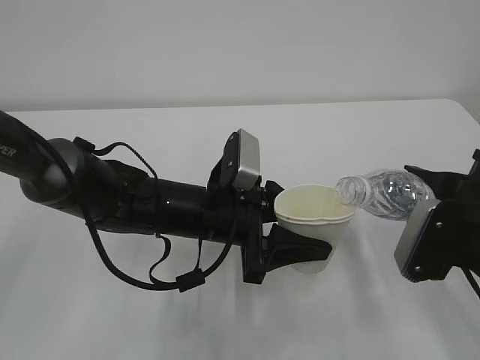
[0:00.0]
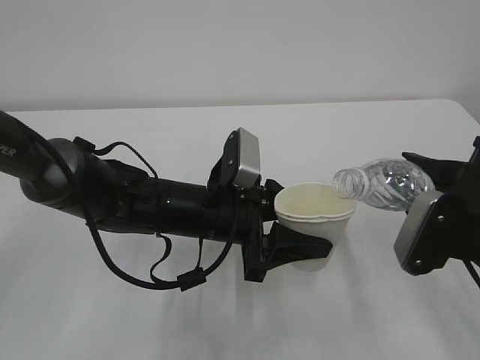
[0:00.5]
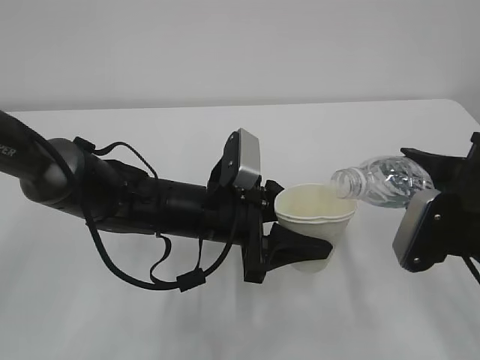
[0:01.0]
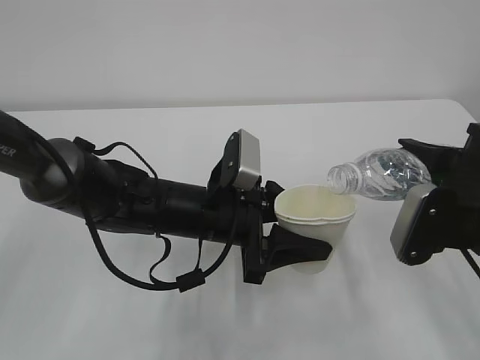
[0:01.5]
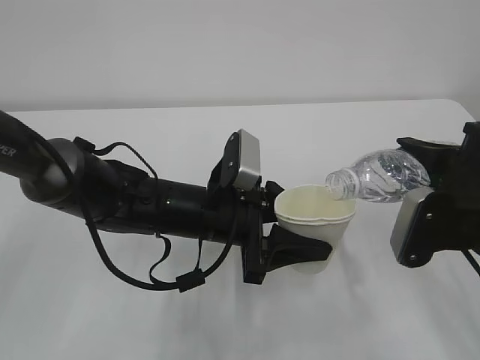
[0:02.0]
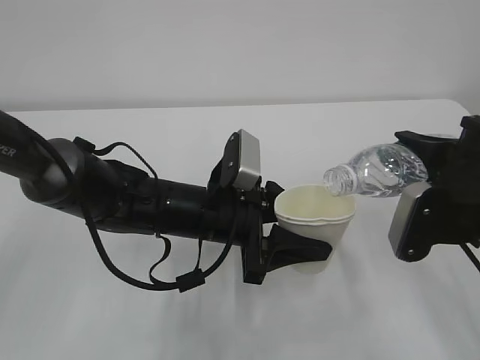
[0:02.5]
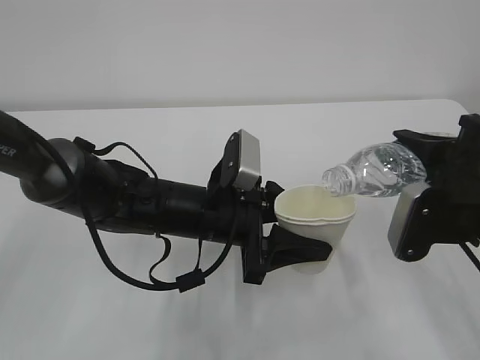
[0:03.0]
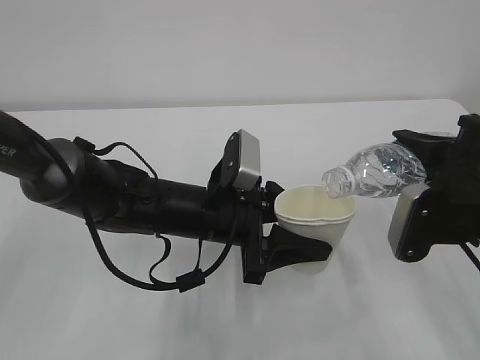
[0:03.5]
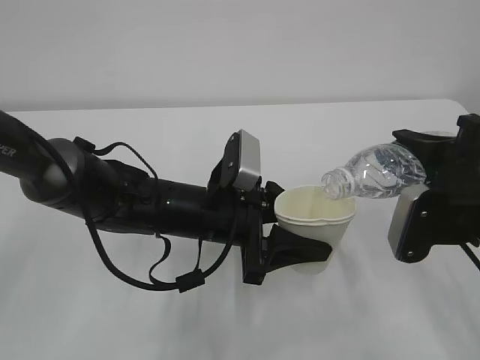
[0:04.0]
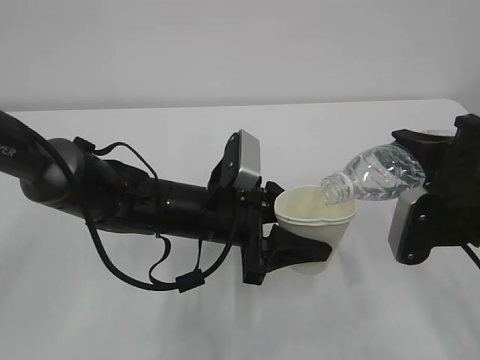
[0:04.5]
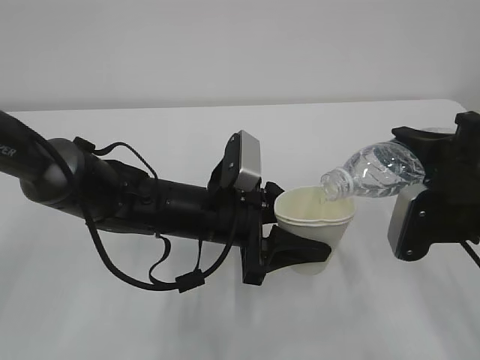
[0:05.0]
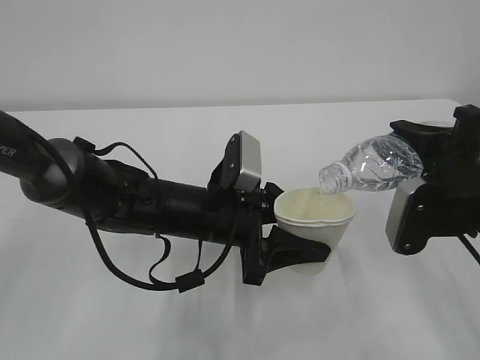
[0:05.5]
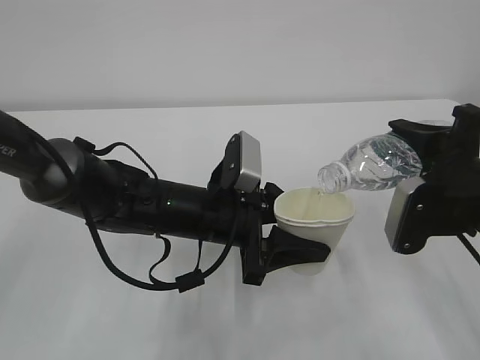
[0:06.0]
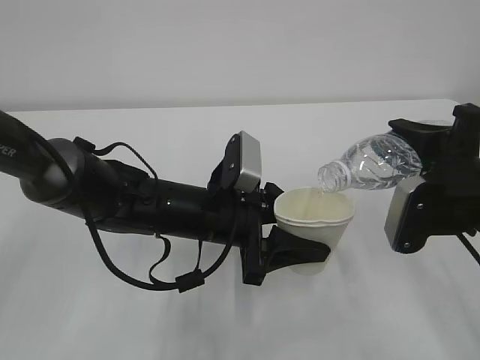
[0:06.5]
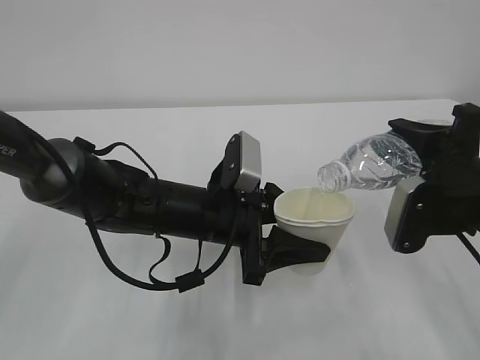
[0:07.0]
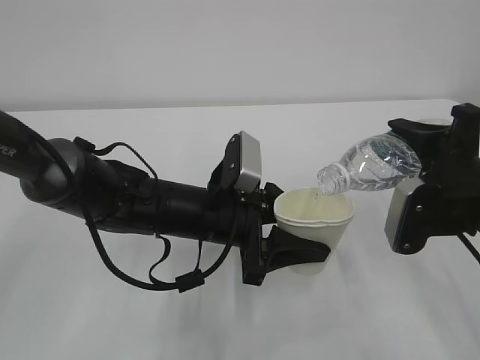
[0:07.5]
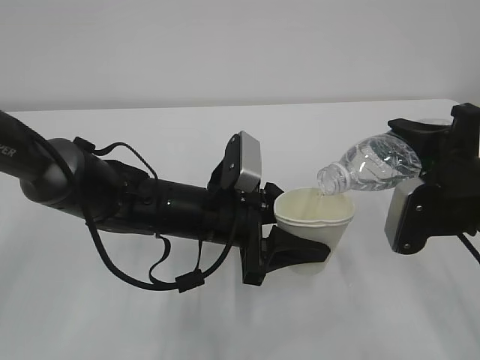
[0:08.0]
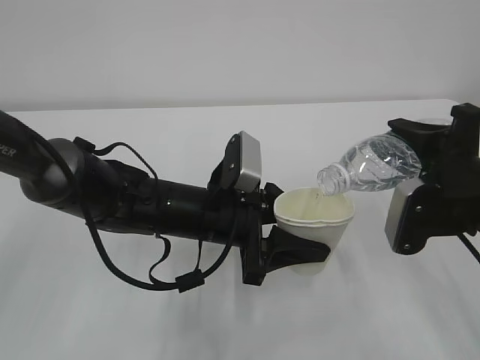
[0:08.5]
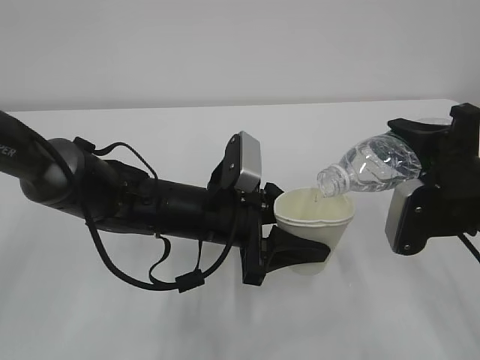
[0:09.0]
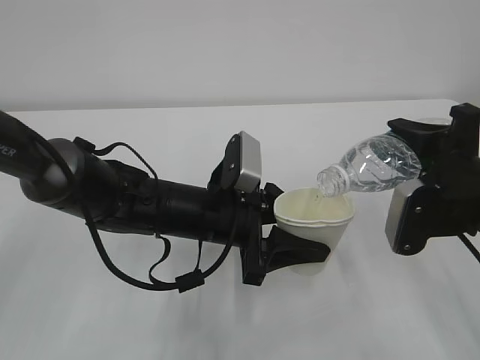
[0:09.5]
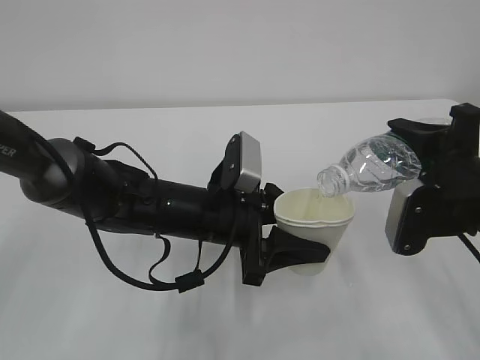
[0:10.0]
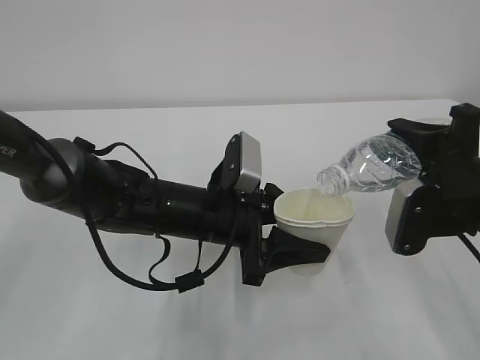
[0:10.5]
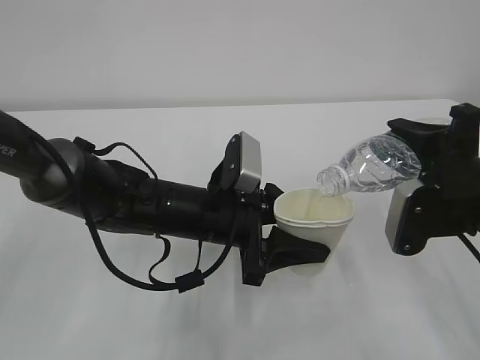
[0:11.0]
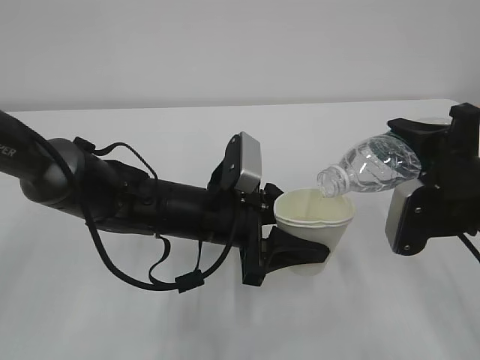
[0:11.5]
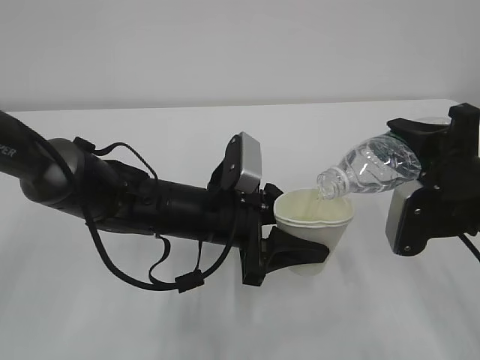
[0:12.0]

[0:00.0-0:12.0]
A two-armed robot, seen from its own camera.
0:00.0 to 0:02.0: There are only small adjustments of the grippers.
0:02.0 to 0:04.0: Both grippers stay about where they are.
0:04.0 to 0:08.0: Neither gripper changes place.
0:08.0 to 0:12.0: Both grippers stay put.

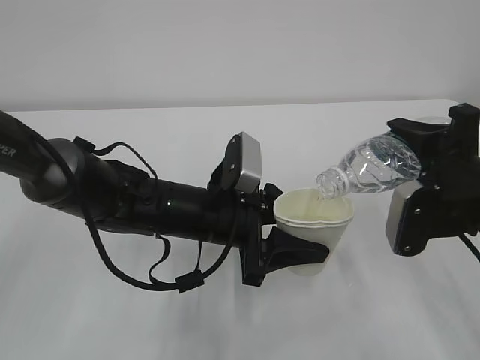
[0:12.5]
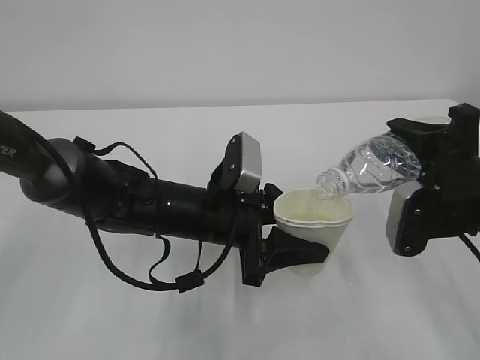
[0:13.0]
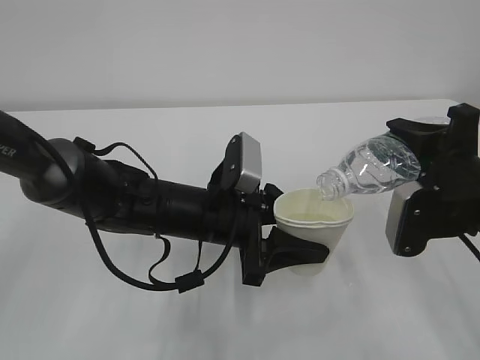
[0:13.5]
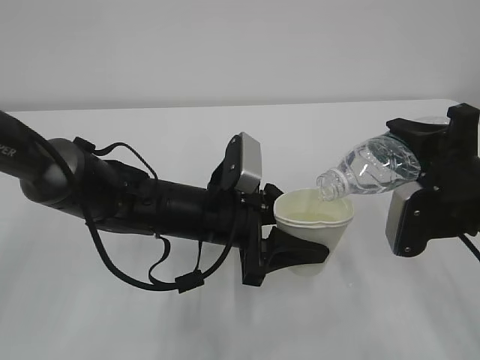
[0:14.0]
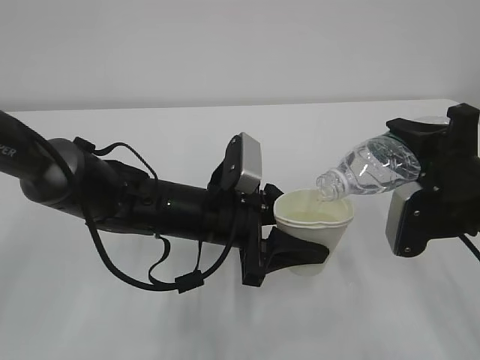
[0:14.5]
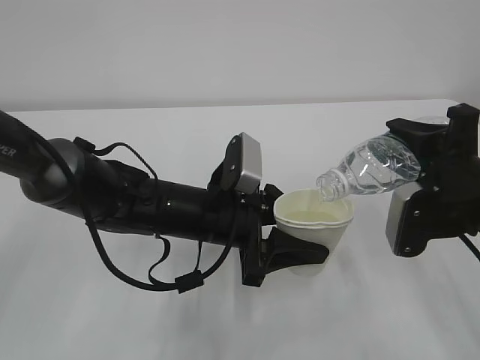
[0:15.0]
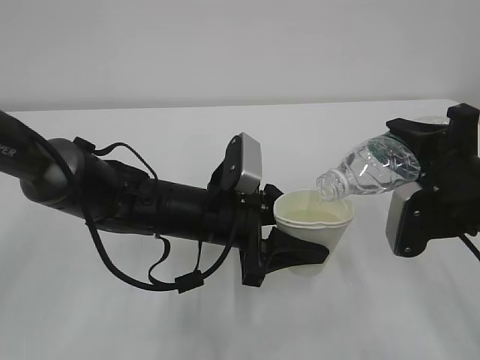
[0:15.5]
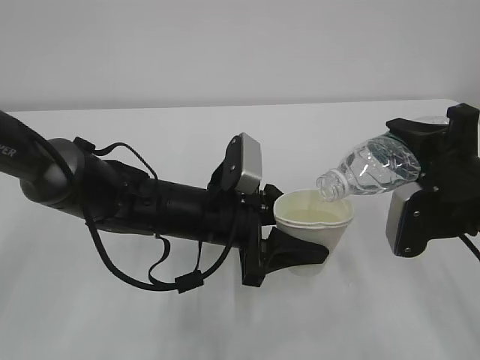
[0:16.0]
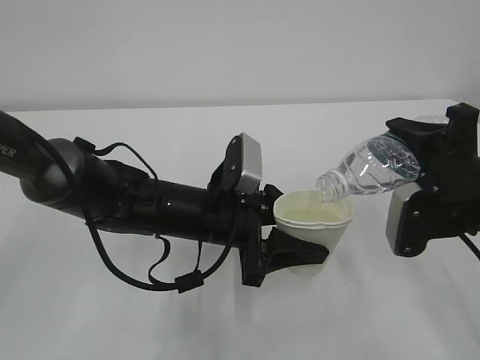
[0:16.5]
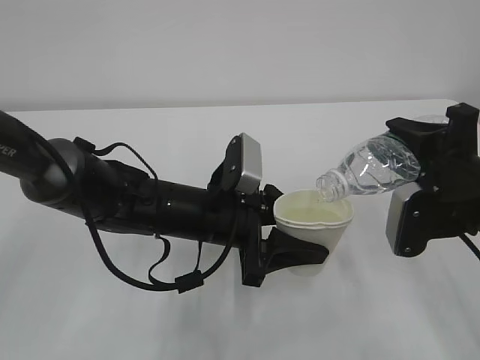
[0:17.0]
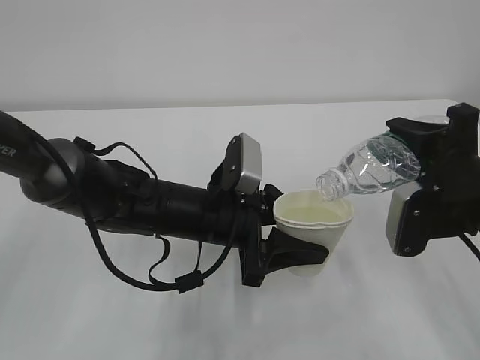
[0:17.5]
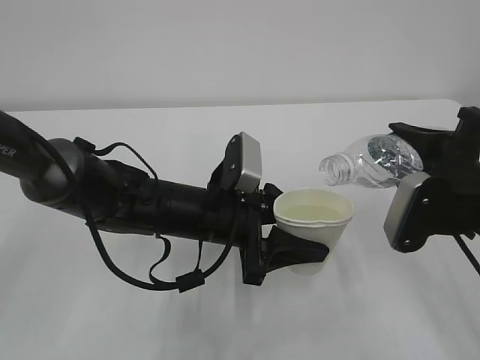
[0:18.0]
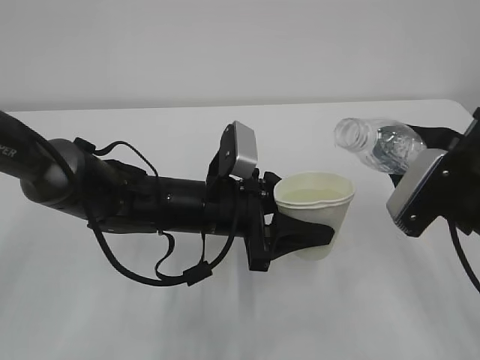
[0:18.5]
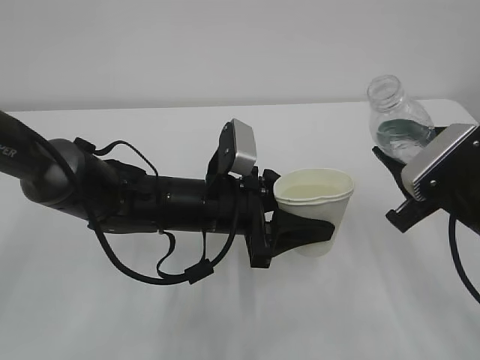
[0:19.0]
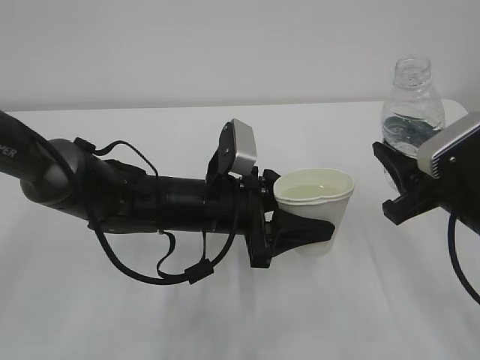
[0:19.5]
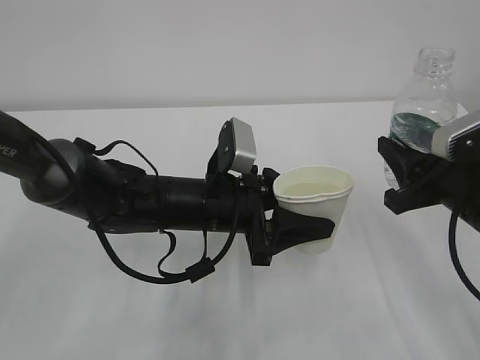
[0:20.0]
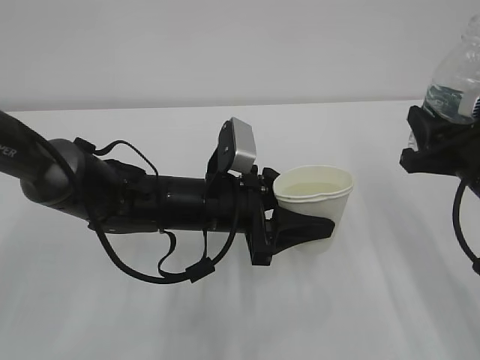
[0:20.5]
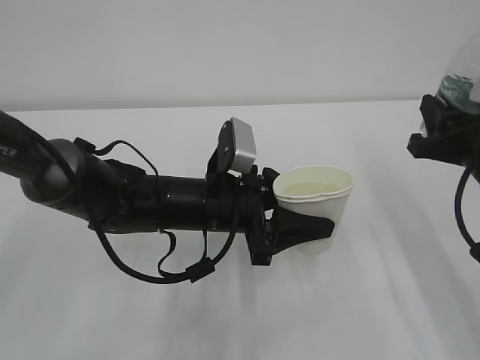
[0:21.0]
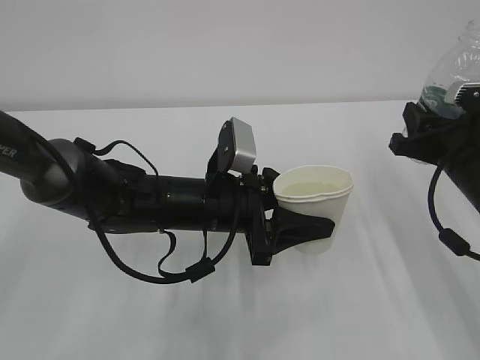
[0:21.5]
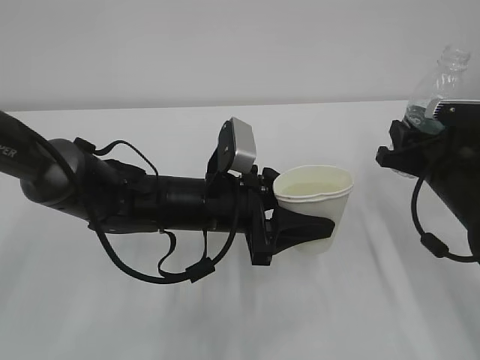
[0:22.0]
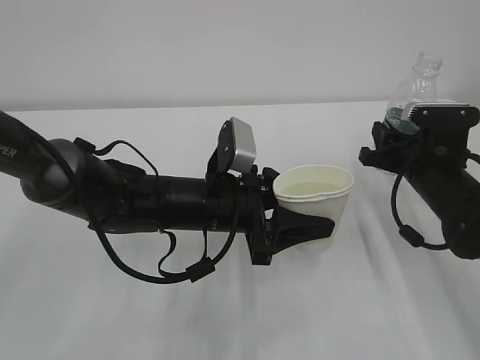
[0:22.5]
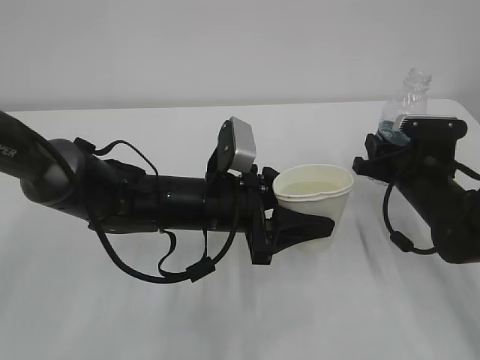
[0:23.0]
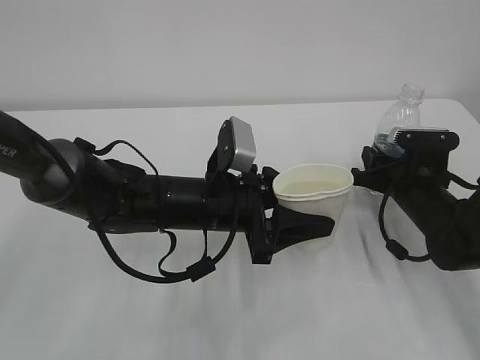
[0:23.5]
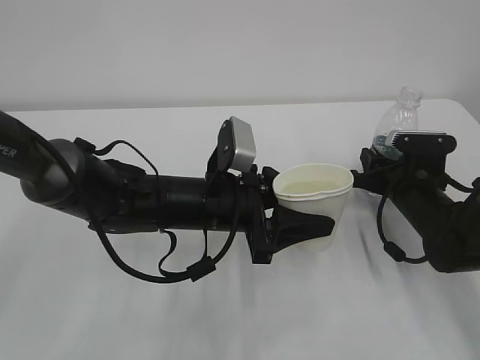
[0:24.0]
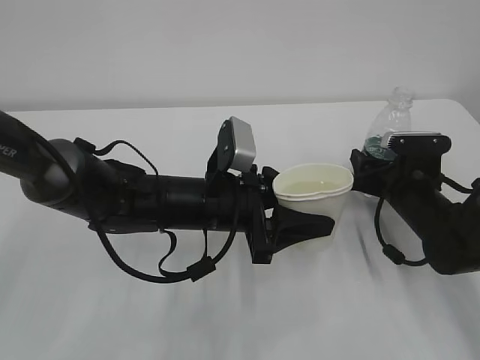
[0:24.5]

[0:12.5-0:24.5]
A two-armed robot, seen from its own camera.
0:12.5 to 0:16.5: The two grippers keep their place.
0:20.5 to 0:22.5: The right gripper moves forward and downward, some 10 cm.
0:22.5 to 0:24.5: The right gripper is displaced downward by some 5 cm.

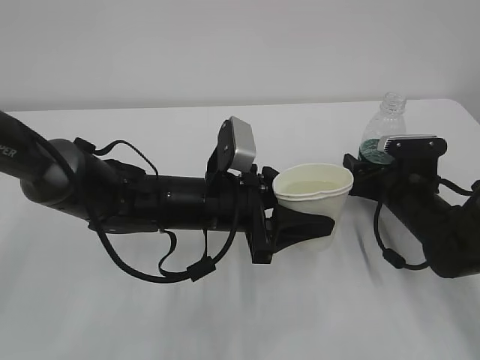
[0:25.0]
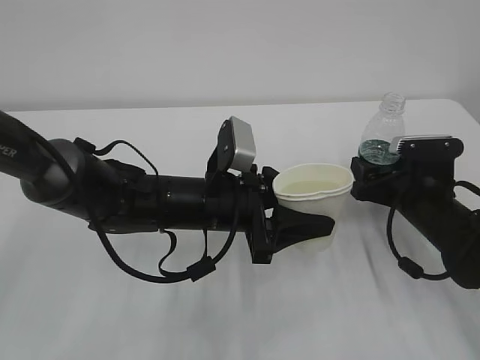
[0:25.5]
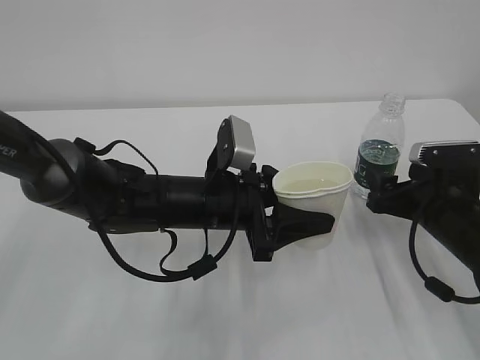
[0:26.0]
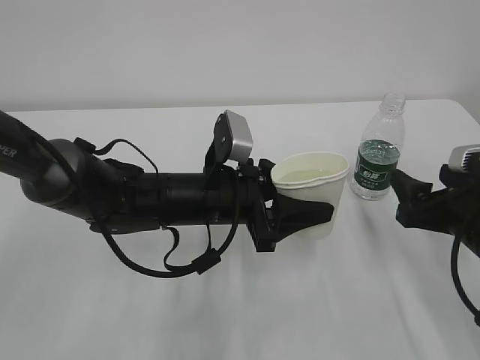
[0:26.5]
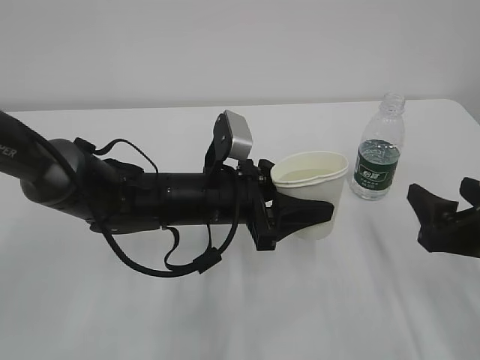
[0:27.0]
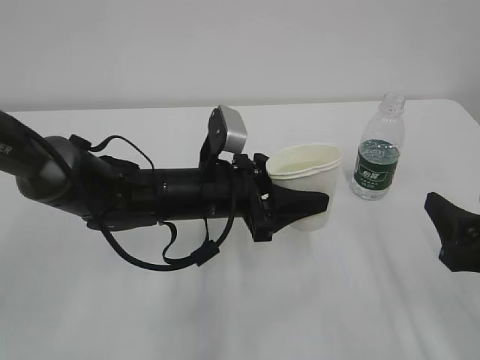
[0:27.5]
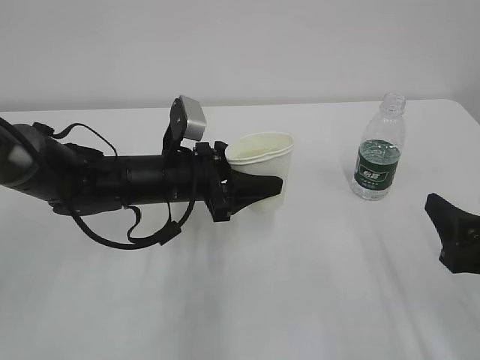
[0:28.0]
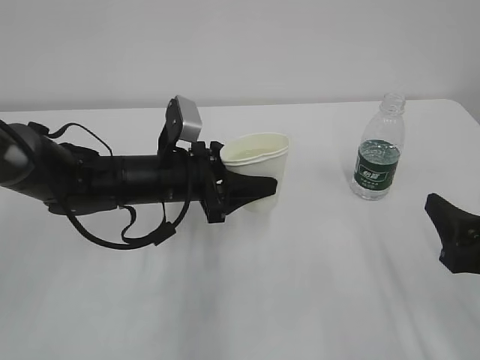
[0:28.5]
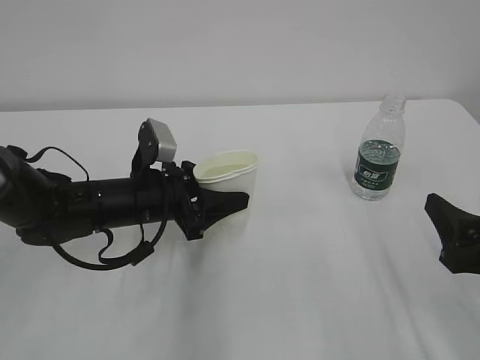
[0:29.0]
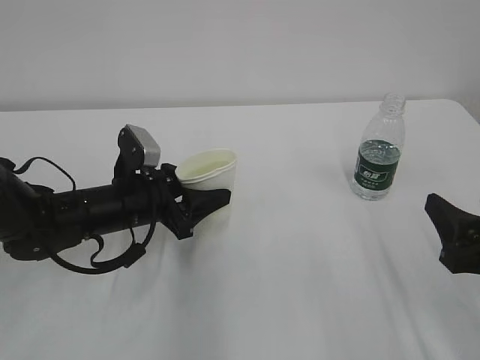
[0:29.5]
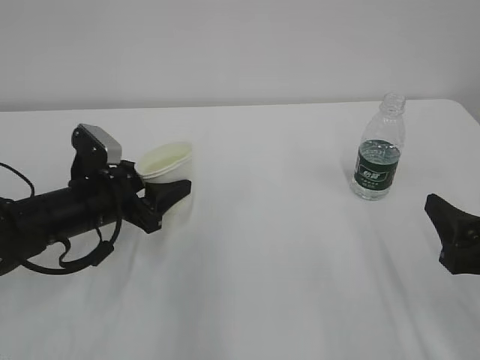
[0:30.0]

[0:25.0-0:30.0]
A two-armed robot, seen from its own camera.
0:25.0 to 0:27.5: The right gripper heads backward and upward, covering about 20 cm.
0:27.5 to 0:30.0: The left gripper goes some 15 cm to the left.
